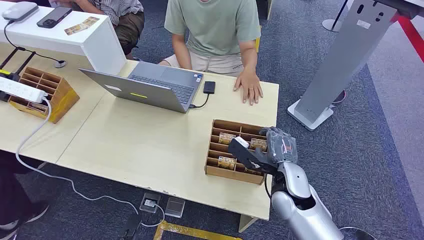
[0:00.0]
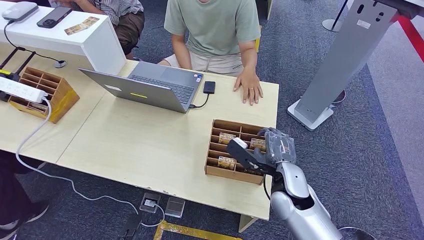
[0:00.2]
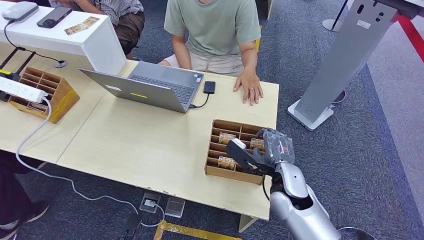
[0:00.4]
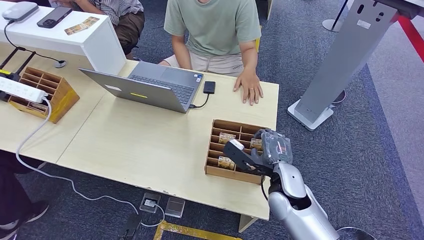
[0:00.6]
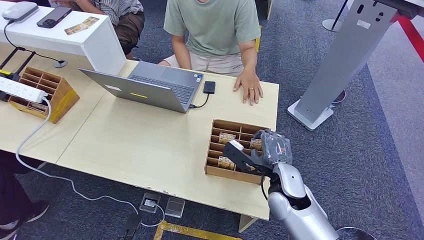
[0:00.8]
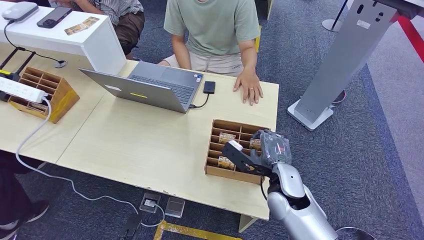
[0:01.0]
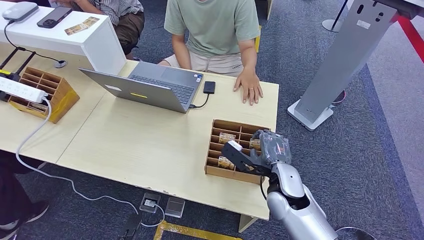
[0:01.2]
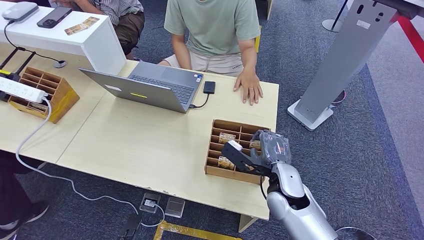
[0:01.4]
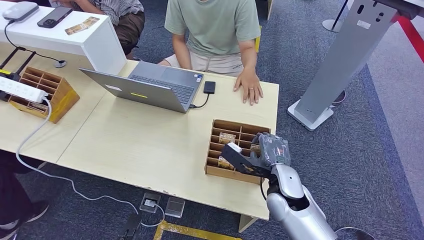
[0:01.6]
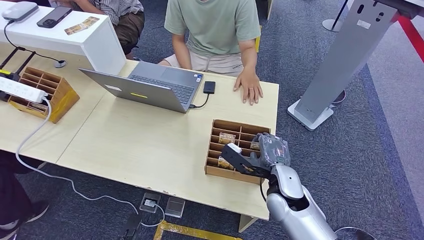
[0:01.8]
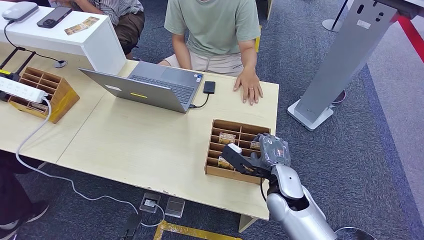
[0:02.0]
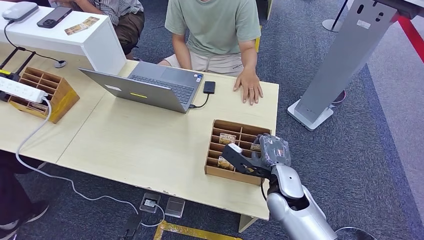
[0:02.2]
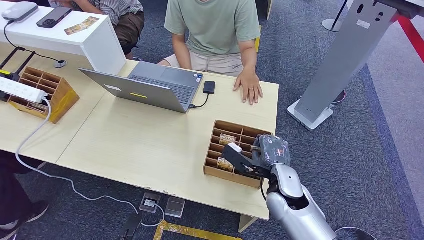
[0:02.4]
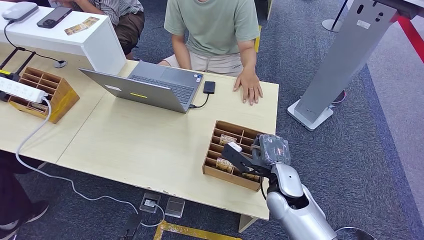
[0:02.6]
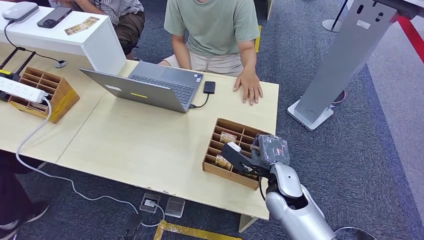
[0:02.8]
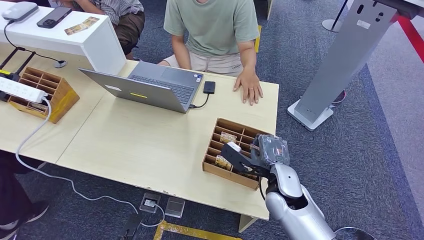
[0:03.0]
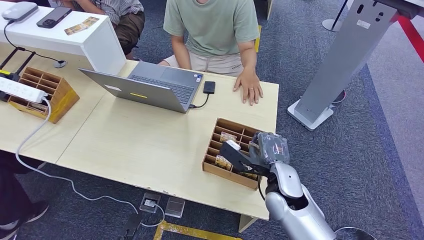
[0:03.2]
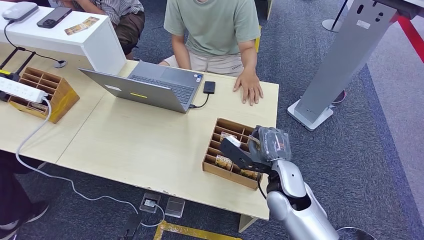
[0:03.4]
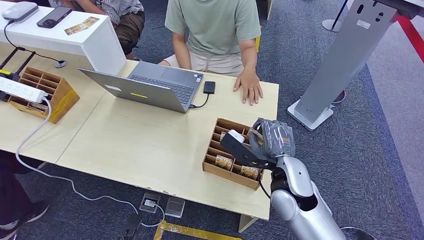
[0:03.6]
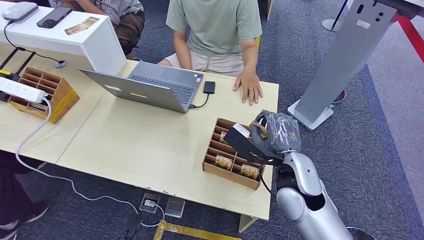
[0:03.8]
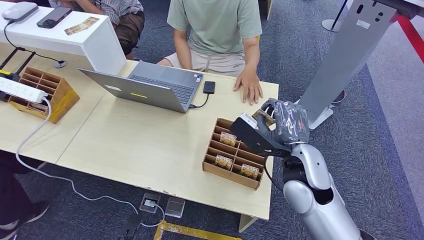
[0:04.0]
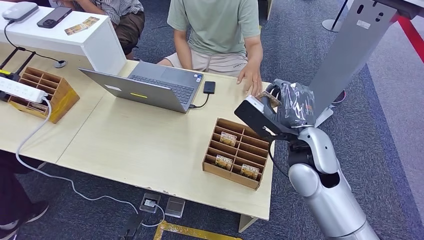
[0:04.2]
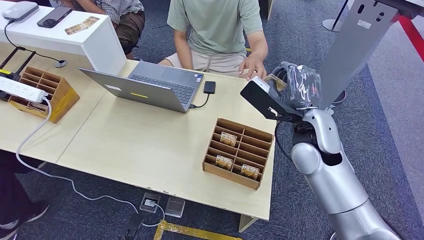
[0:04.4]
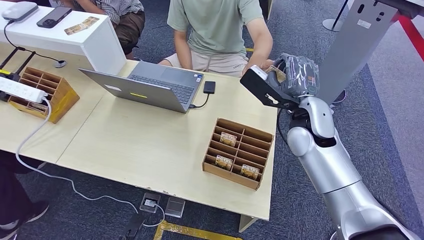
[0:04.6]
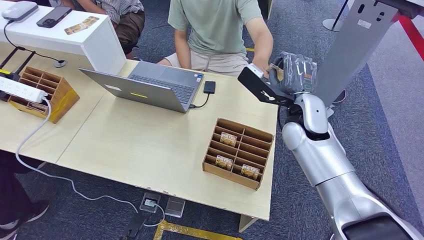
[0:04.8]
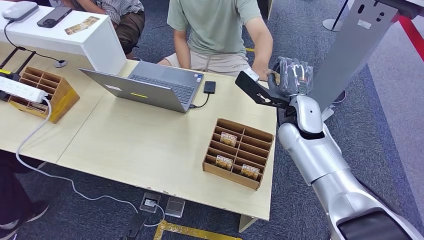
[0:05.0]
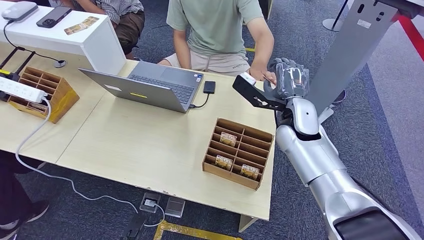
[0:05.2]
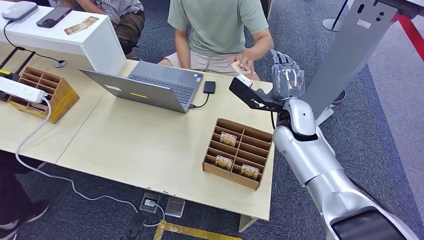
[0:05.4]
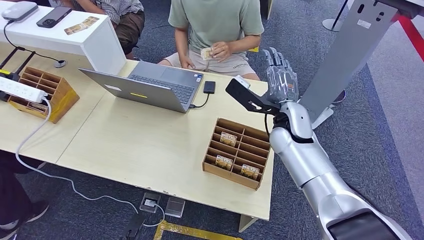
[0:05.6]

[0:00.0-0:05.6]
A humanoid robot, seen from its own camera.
Step, 0:00.0 to 0:03.4: Pick up the key card from the card box.
Step, 0:04.8 to 0:05.6: Hand the key card to the target.
0:01.4 to 0:02.8: Neither hand changes place.
0:02.8 to 0:04.2: The right hand is displaced upward by some 15 cm.
0:04.2 to 0:05.6: The right hand is displaced forward by roughly 10 cm.
